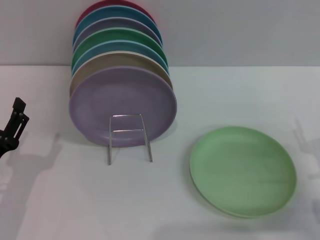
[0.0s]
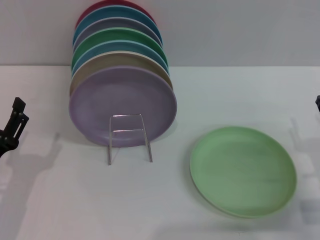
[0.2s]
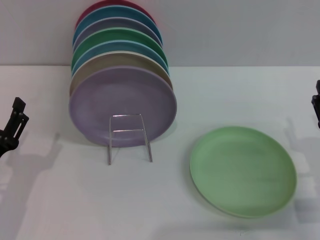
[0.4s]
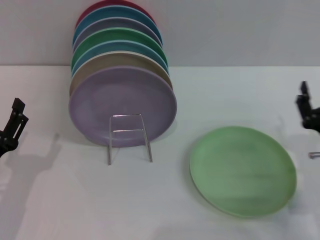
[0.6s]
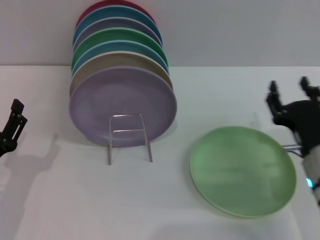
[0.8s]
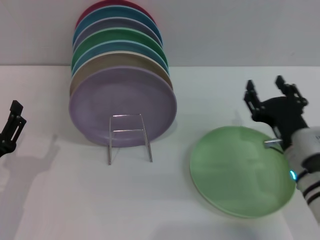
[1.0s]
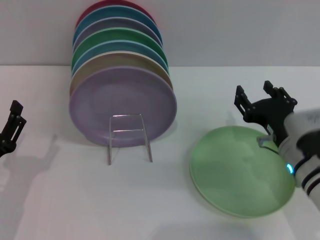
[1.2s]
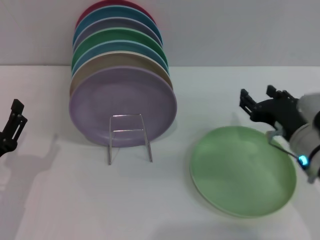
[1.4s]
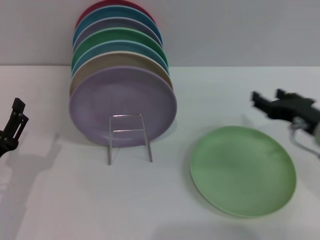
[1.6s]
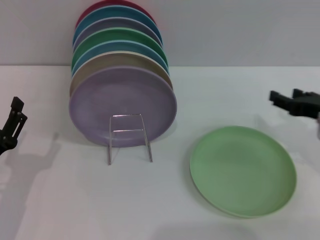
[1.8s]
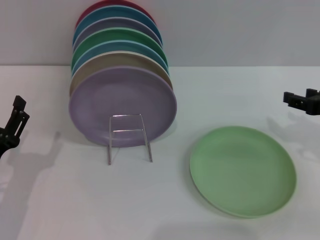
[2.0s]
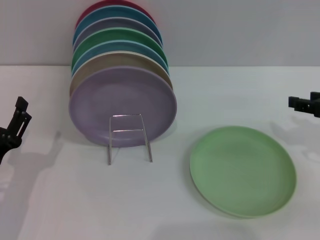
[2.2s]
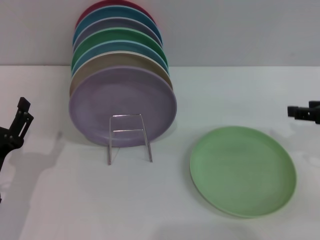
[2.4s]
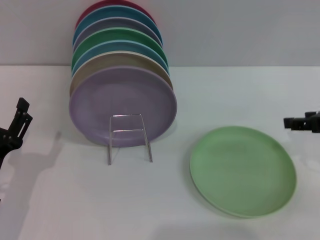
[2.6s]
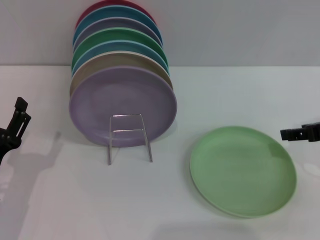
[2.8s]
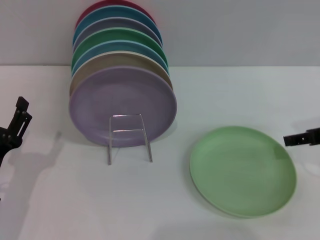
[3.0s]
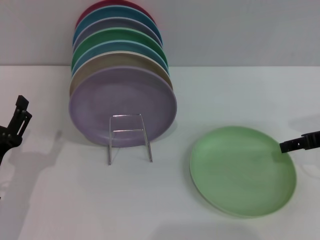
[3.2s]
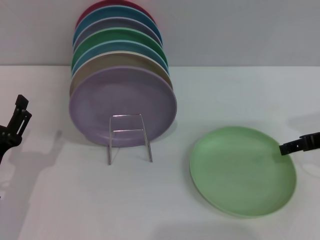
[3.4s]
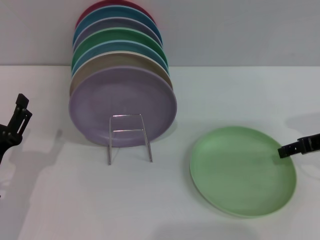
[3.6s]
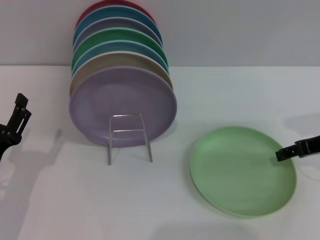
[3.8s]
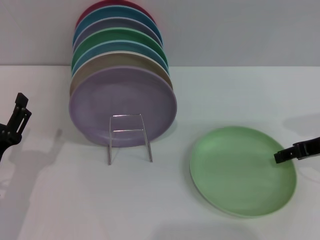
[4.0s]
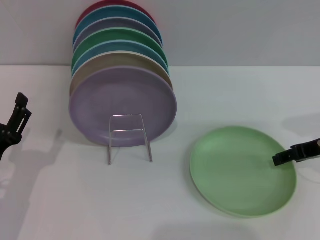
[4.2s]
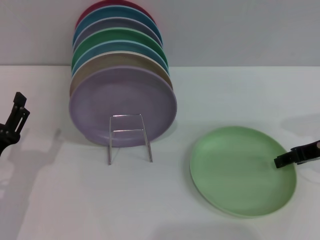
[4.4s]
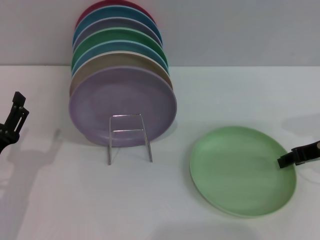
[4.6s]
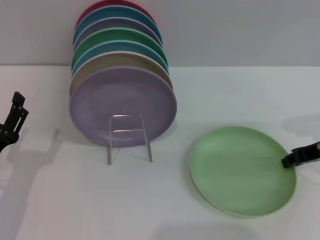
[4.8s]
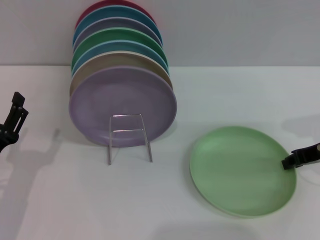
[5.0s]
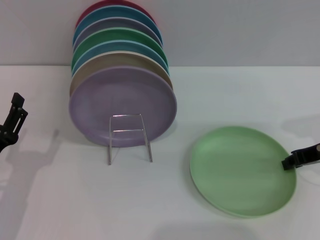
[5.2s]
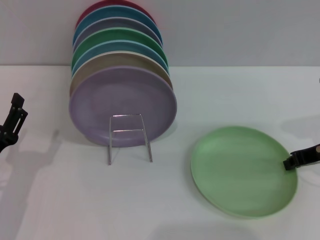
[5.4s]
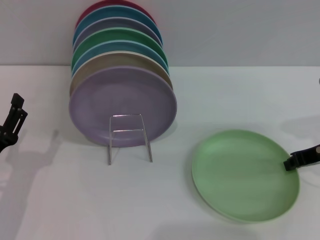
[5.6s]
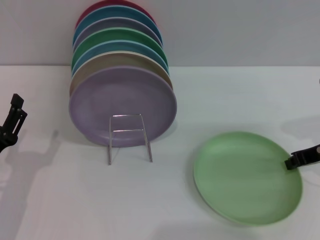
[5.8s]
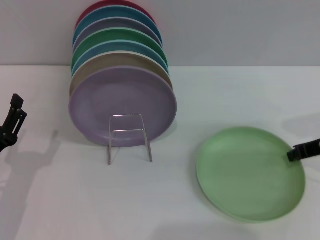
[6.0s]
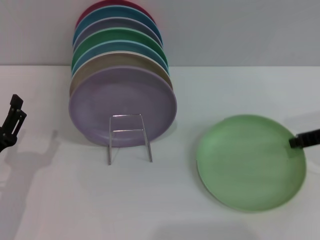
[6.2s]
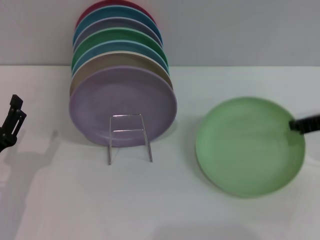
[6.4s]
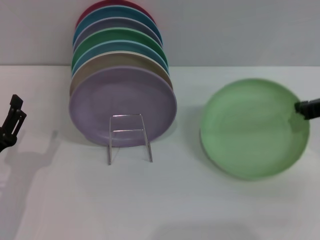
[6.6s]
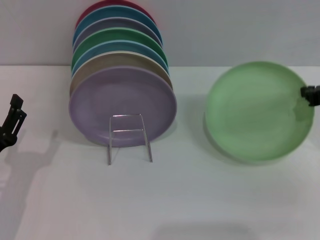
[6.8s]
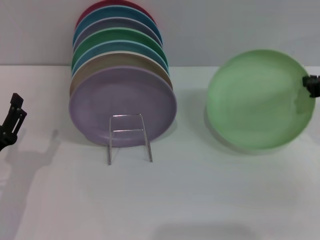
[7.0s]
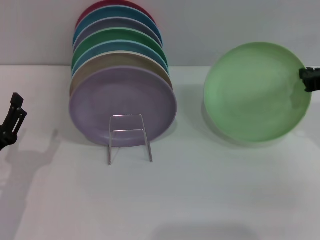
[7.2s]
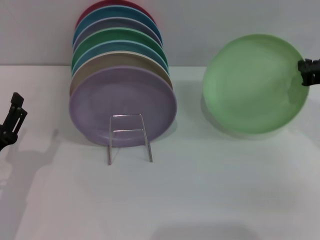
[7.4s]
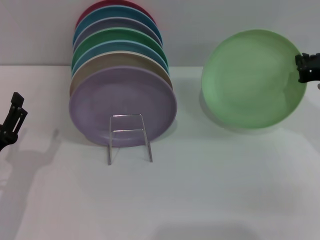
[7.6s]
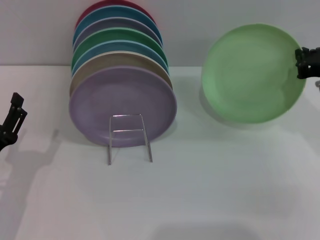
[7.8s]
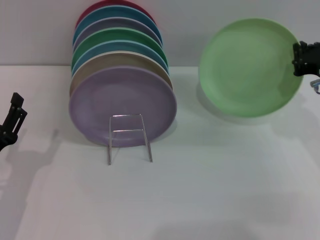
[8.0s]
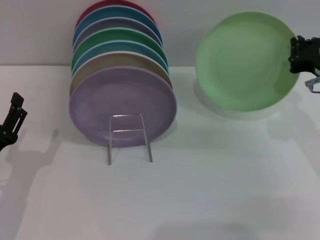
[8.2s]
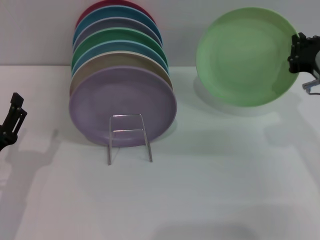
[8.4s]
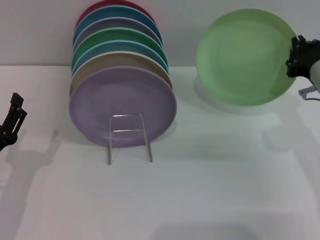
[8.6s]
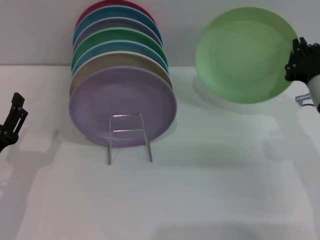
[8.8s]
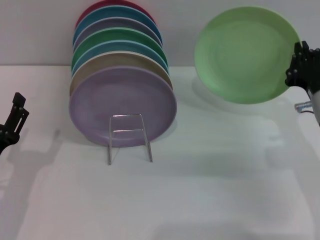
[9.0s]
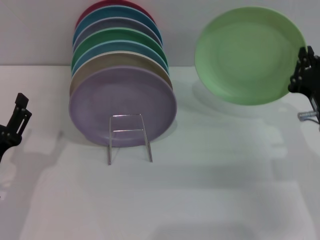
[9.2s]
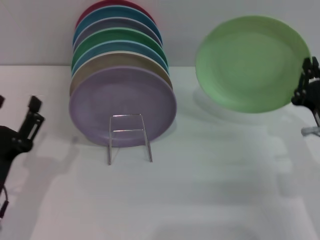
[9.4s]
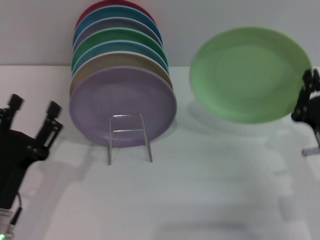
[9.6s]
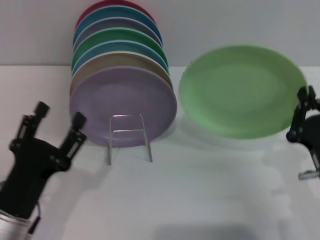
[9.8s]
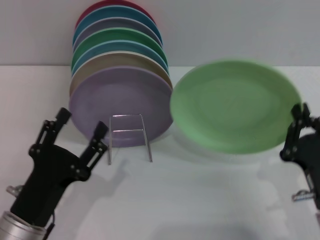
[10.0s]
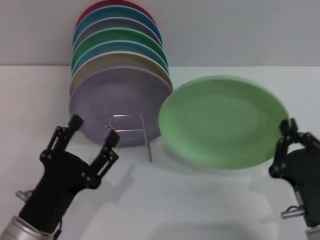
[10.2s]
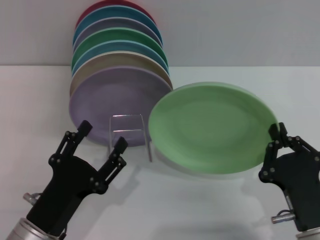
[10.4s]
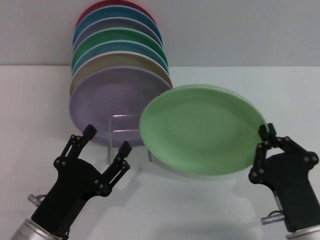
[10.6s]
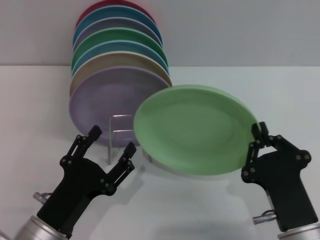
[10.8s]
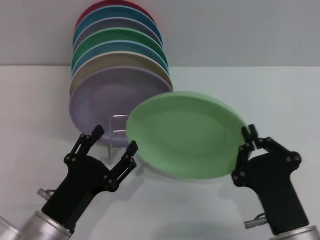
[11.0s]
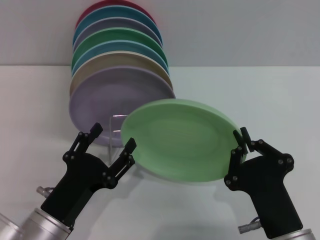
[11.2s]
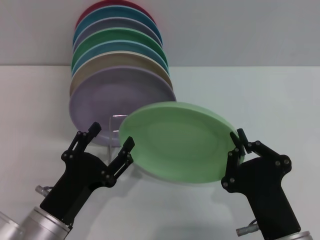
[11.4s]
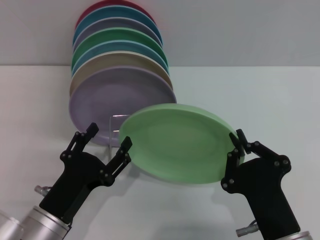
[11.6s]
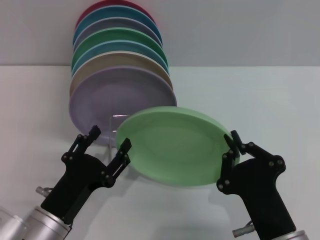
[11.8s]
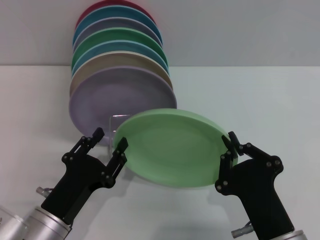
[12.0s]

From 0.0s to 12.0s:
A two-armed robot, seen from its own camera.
Task of the whole recording: Grip the plate with one hand, pass it to the other, then set it on the shelf.
Step, from 0.0s to 6.4s: Pick up the plate with the right gripper.
From 0.0s to 1.6s: The right gripper travels upward and forward by approximately 10 cm.
From 1.6s to 3.0s: The right gripper travels upward and to the right by some 10 cm.
From 3.0s to 4.4s: The grippers move only a little.
From 4.4s to 6.0s: The right gripper closes.
From 7.6s to 9.0s: The right gripper goes approximately 5 cm downward.
From 9.0s to 10.4s: The right gripper heads backward, covering about 15 cm, while the left gripper travels to the right by roughly 10 cm.
From 10.4s to 12.0s: The right gripper travels to the left by roughly 5 cm.

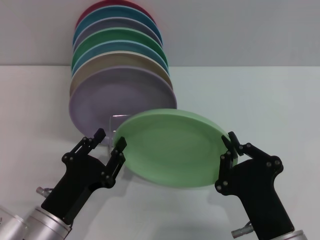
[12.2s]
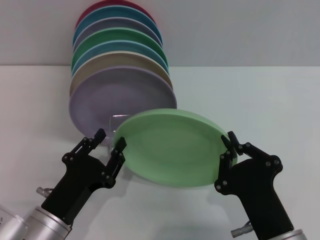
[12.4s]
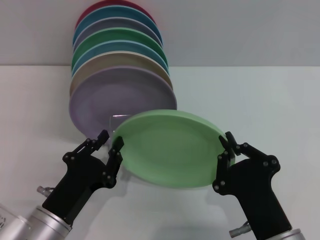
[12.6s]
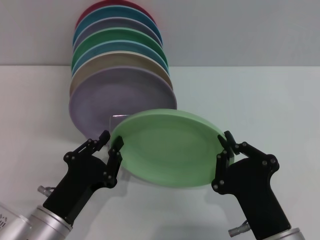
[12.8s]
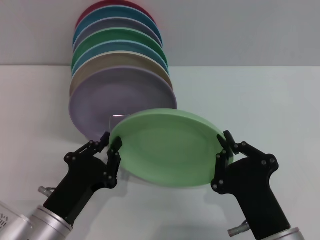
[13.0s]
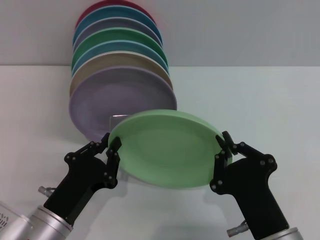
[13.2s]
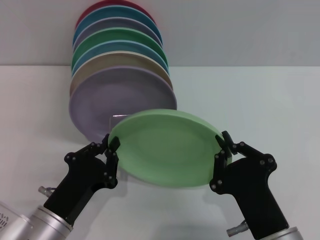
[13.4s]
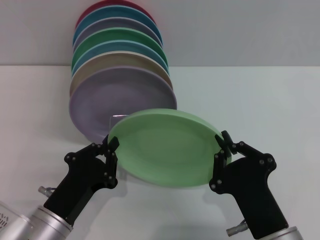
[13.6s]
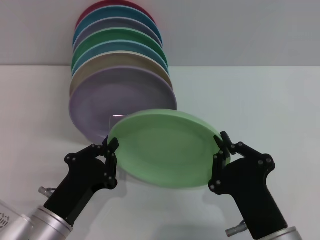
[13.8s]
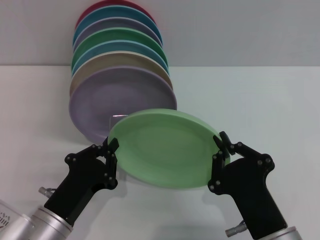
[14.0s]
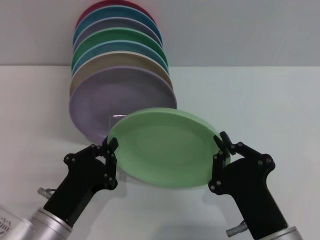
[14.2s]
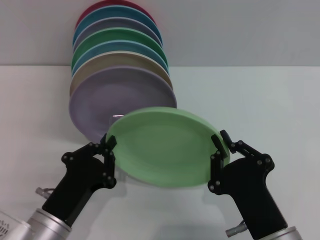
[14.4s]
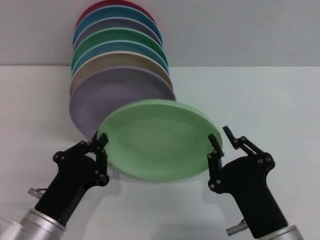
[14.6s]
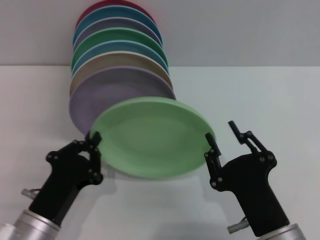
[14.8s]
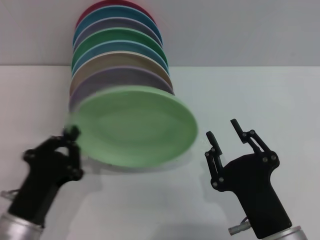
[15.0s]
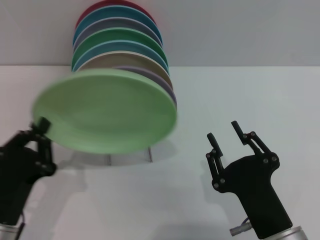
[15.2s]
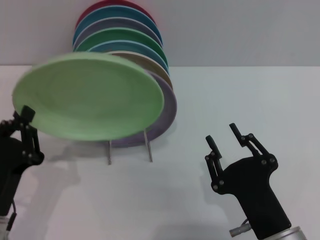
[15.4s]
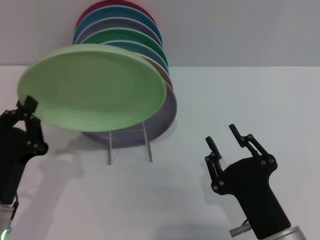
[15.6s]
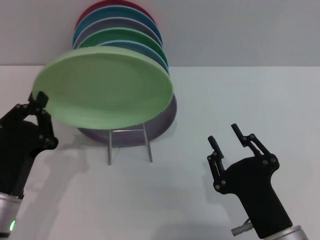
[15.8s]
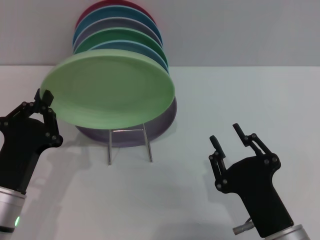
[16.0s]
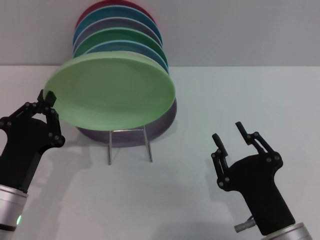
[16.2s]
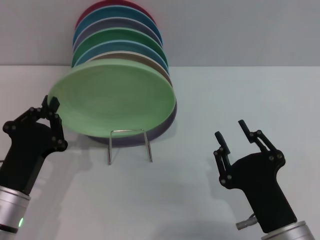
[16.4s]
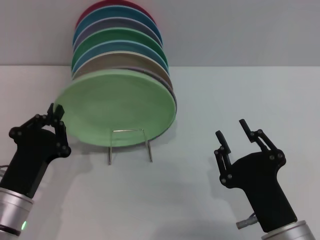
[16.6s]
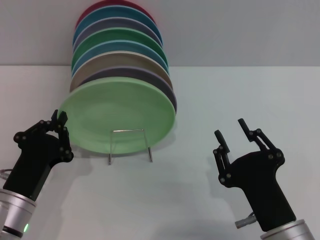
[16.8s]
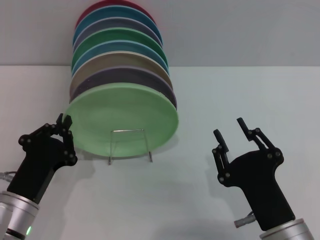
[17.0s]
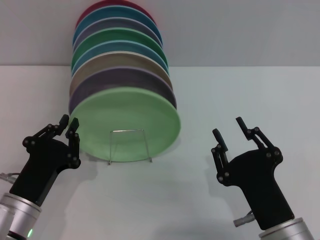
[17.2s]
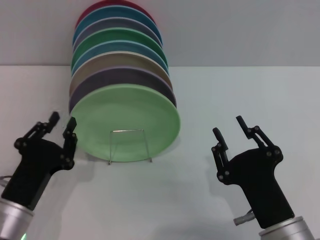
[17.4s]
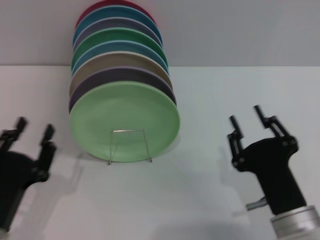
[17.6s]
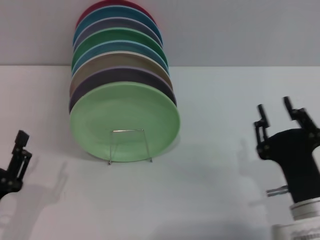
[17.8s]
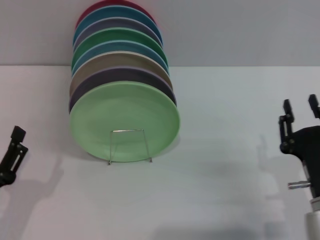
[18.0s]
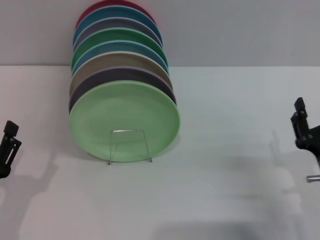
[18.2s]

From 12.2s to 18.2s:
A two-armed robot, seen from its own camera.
Task of the whole recording: Grip the plate with one hand, pass it to the other, then set it on the shelf.
Step, from 12.2s to 14.4s: Pass the plate from the right gripper to the left gripper.
Step, from 14.8s to 17.4s: Place the plate on the shelf with the left gripper.
From 12.2s to 13.8s: The left gripper closes up.
From 13.8s to 15.2s: The right gripper opens its fingers. The left gripper shifts by roughly 5 cm.
From 15.2s to 16.6s: The grippers make only small movements.
From 16.6s to 18.2s: The left gripper heads to the left, covering some 5 cm, and opens, while the right gripper is displaced to the right and forward by approximately 10 cm.

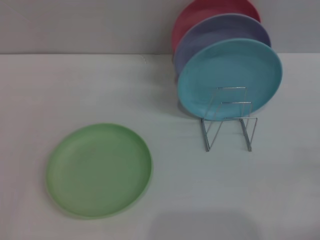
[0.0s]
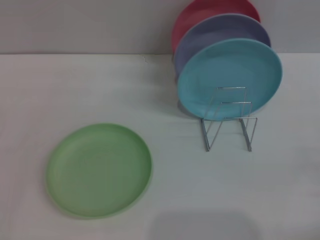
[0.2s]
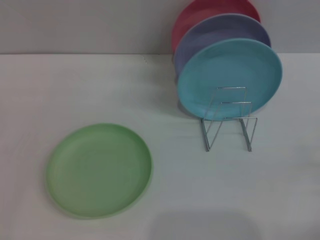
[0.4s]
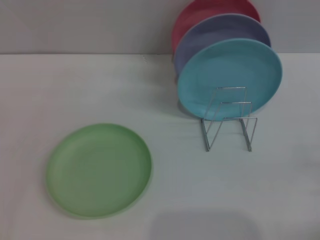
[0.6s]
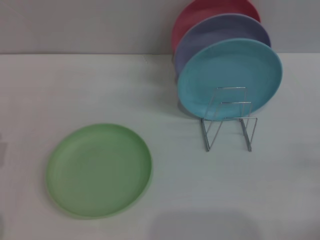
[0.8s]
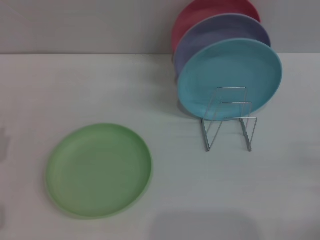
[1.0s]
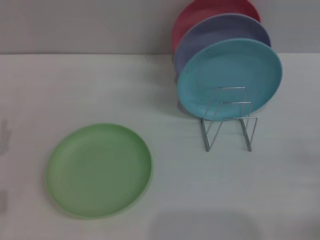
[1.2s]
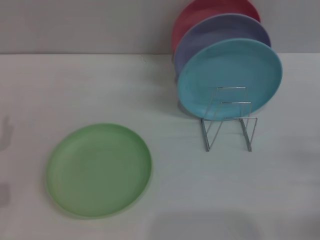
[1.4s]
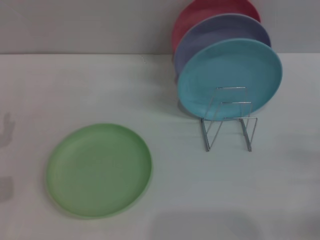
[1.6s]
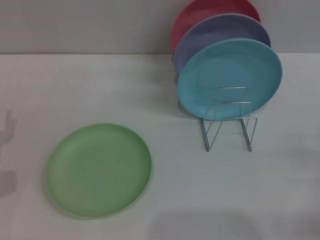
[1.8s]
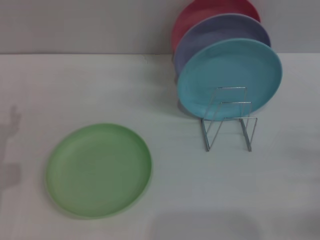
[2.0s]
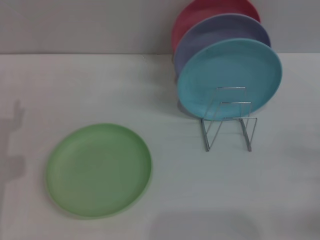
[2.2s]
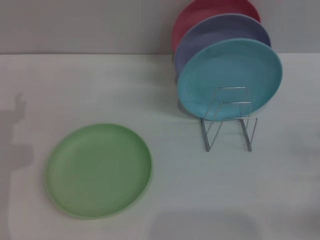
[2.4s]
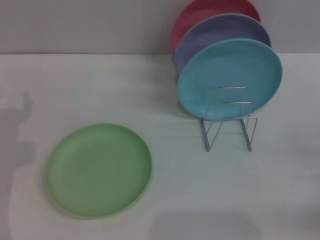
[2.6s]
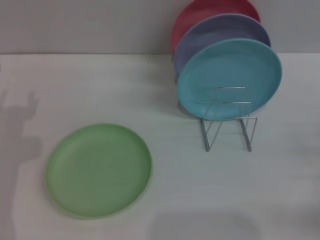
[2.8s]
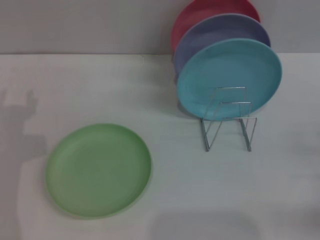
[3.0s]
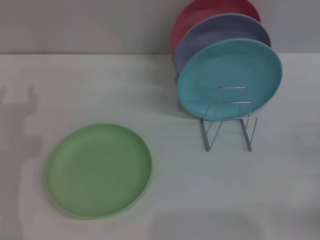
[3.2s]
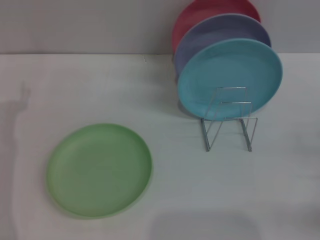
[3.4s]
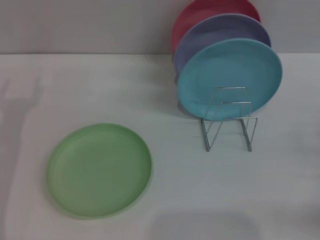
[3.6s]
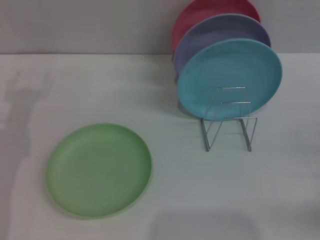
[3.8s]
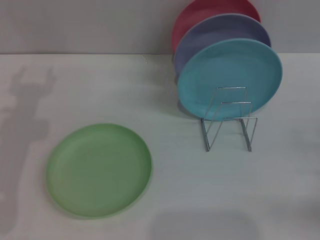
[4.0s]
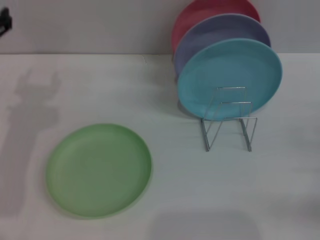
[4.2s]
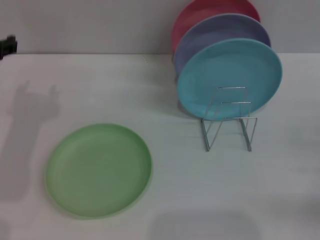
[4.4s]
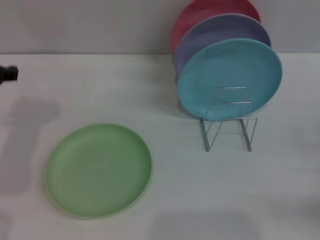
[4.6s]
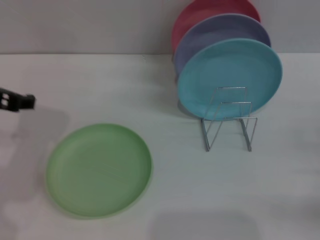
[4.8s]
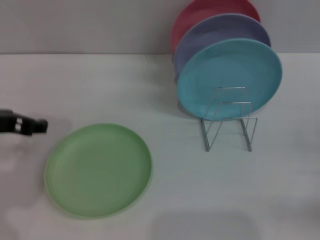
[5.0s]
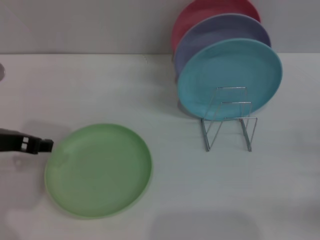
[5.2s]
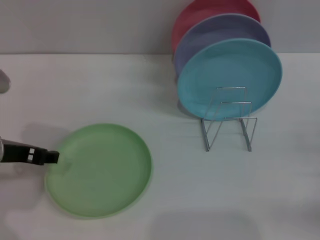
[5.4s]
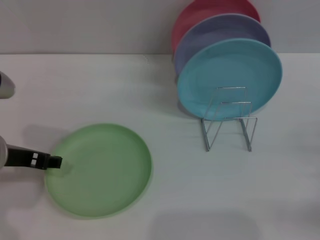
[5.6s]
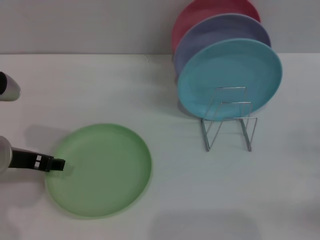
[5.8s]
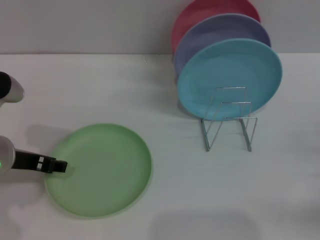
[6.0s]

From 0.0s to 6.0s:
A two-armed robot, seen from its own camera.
Task of the whole recording: Grip the plate with one hand, pass it to the other, then set it on the shelf.
From 4.4s to 6.0s: The left gripper travels downward by some 10 cm.
